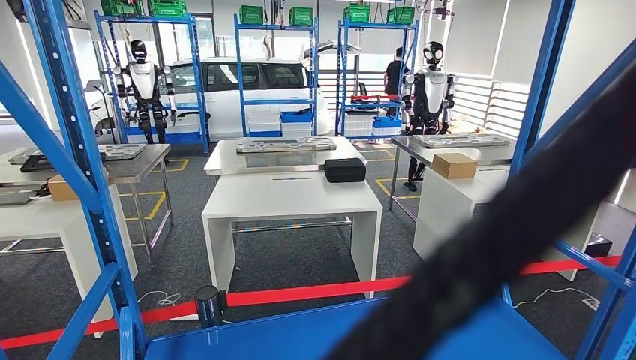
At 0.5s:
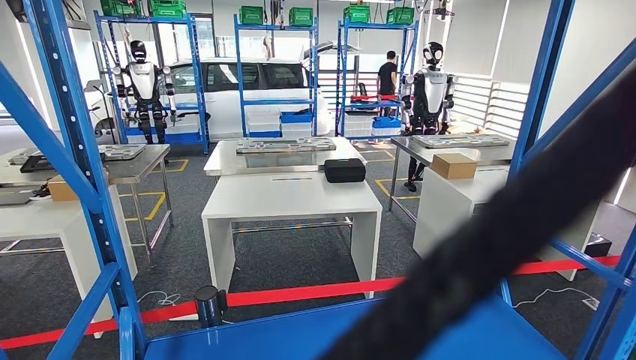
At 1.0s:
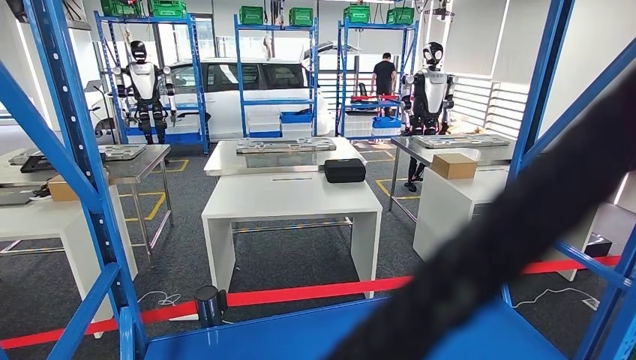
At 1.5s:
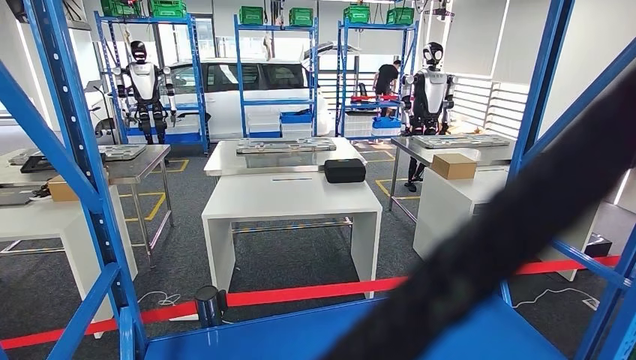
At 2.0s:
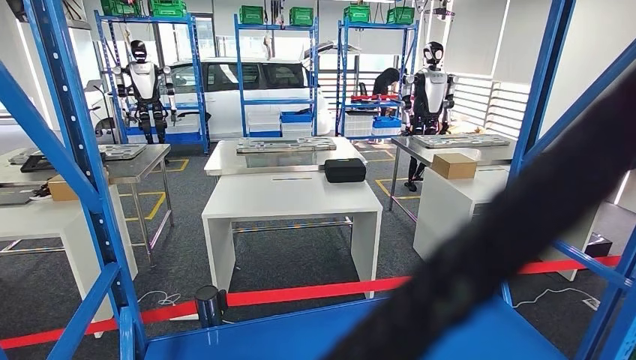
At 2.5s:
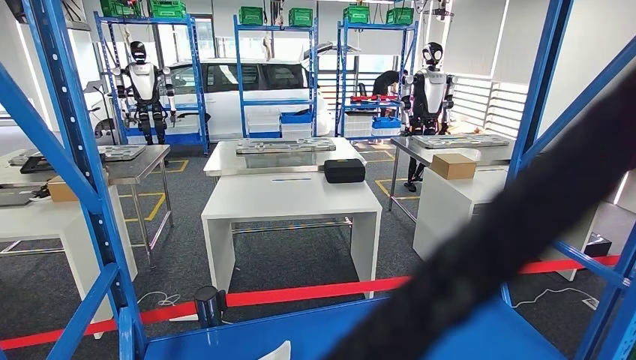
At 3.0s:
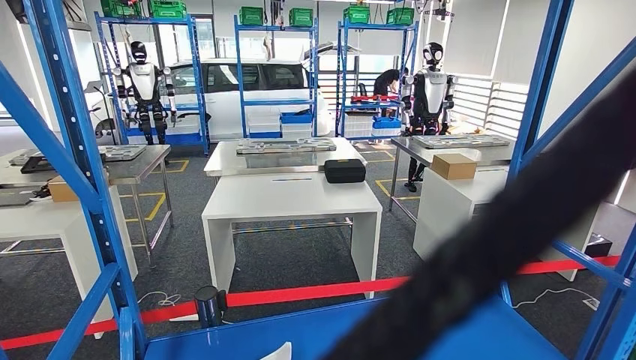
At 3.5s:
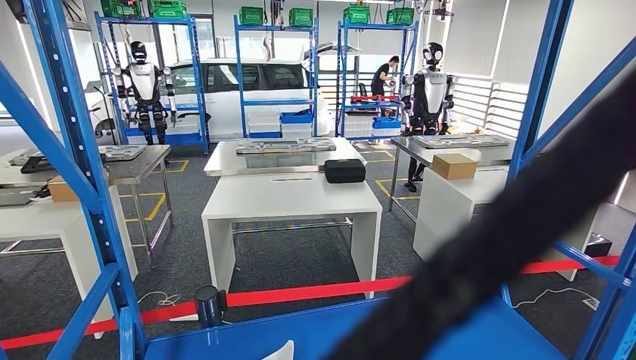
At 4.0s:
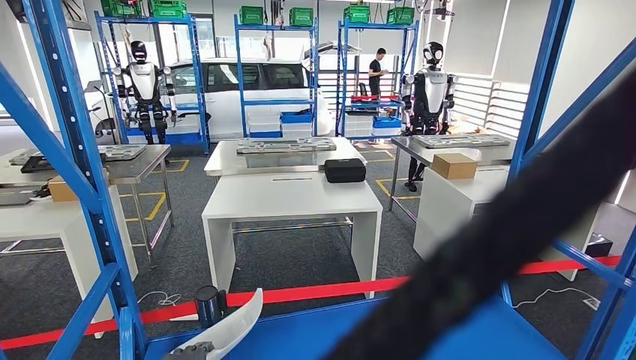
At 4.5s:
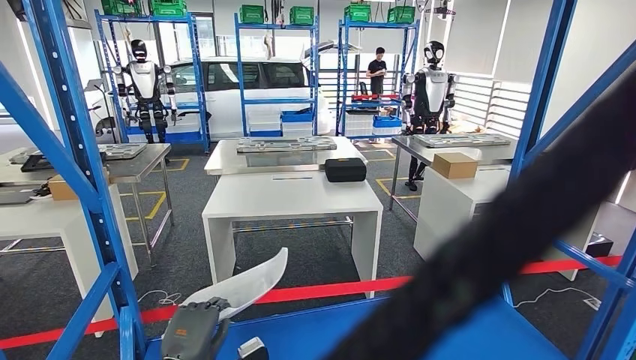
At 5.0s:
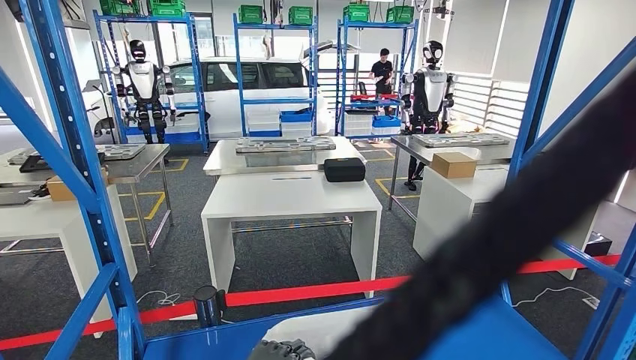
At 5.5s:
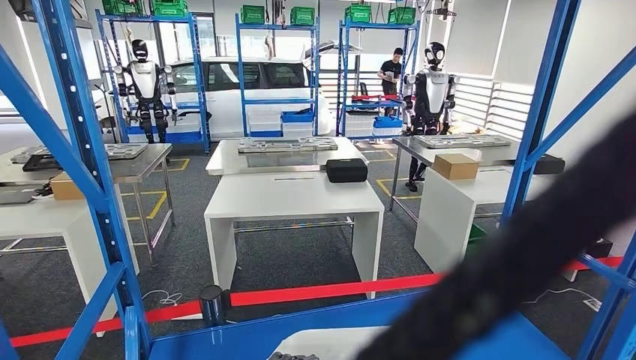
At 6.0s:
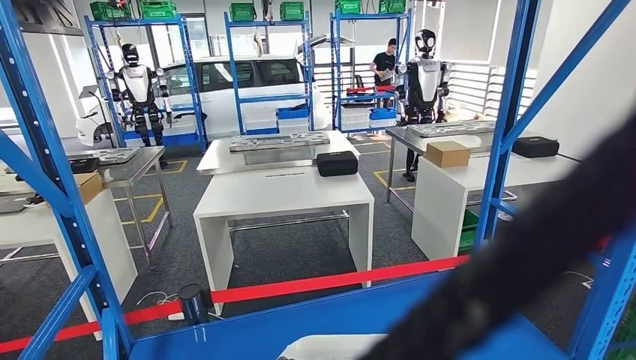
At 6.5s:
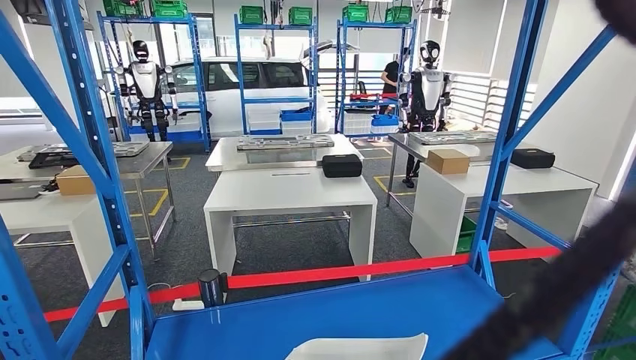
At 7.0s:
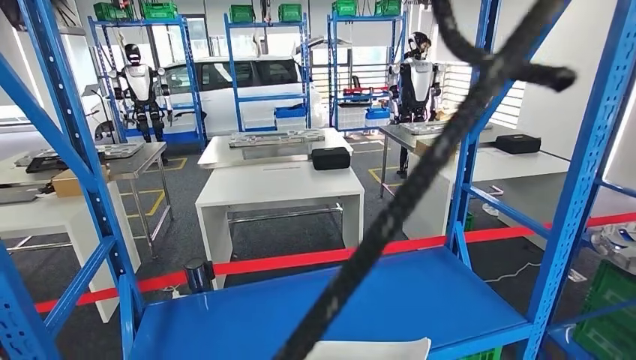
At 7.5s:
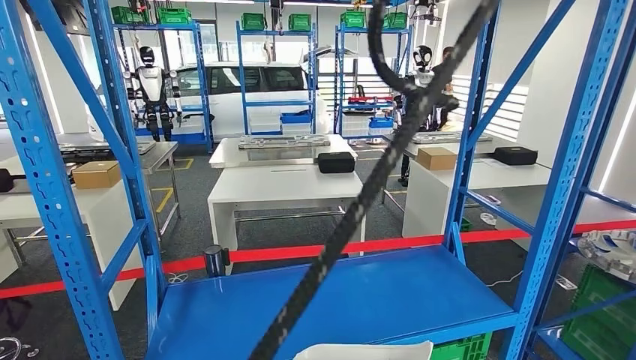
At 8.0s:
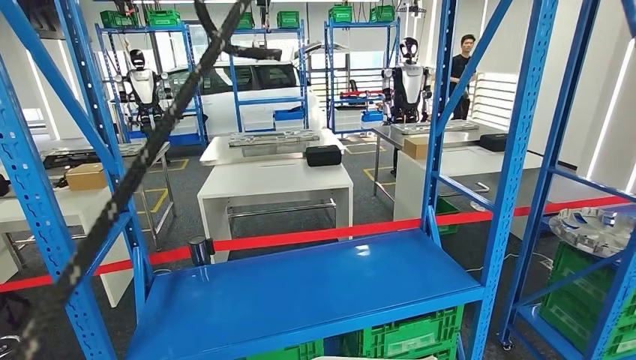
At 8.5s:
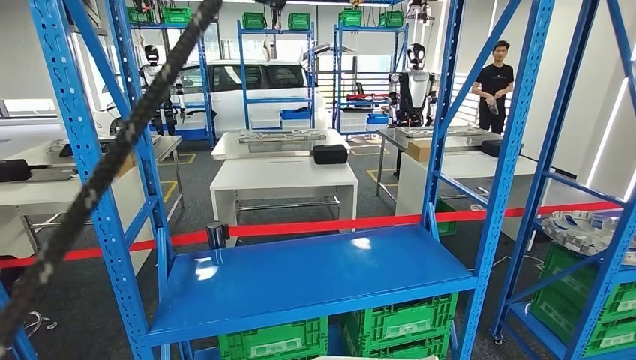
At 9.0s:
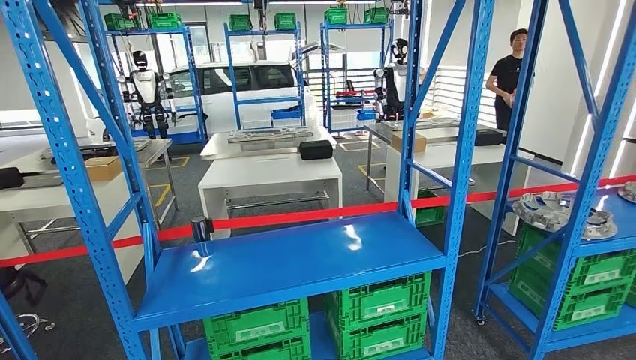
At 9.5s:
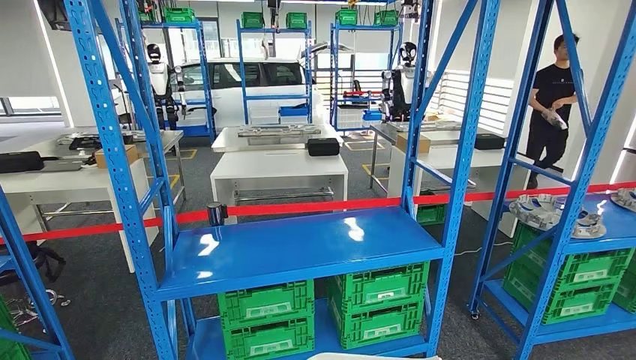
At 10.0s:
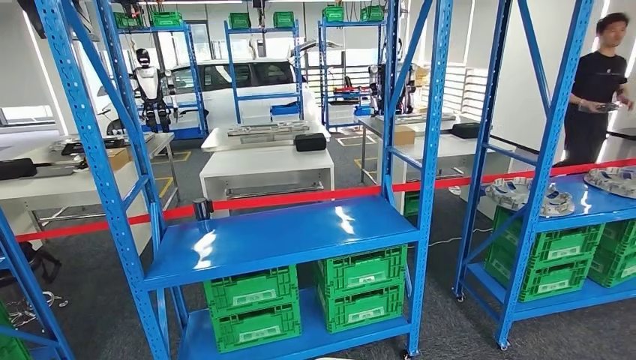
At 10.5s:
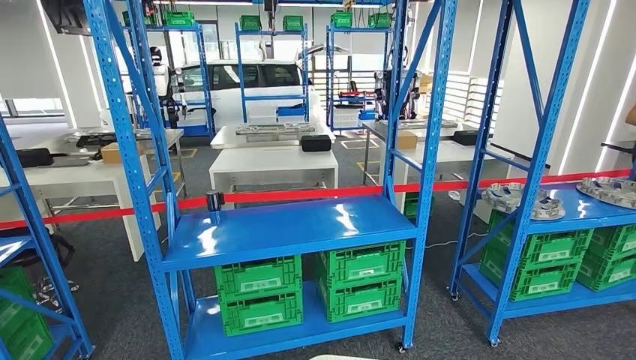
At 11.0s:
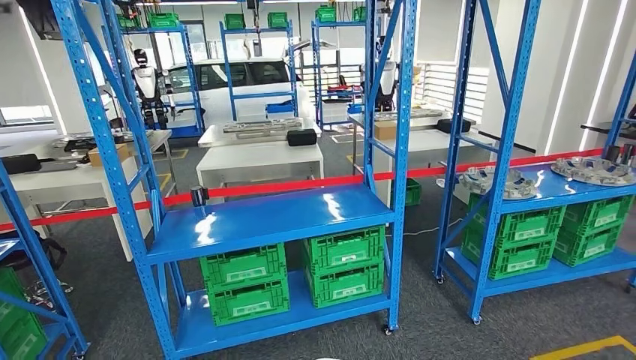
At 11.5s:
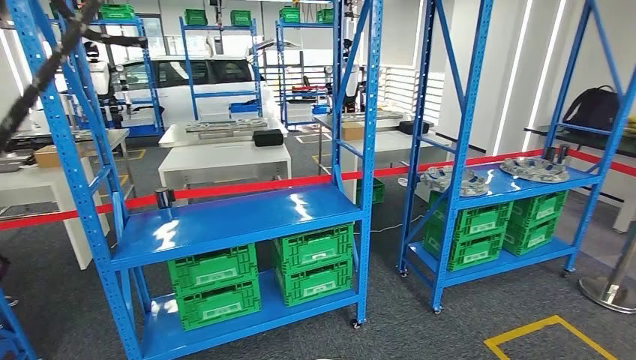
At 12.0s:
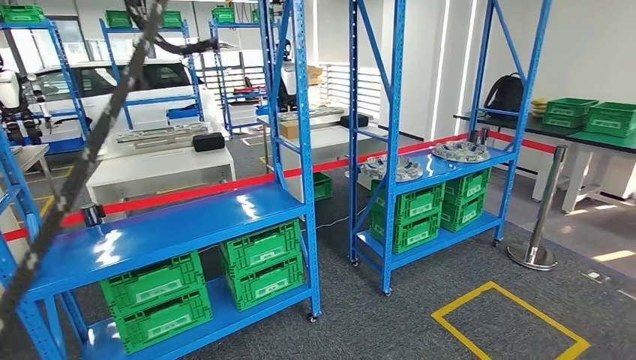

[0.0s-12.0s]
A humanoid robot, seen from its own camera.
Step, 0.0s to 5.5s: Take small components from the rack.
0.0s to 2.0s: The two hands keep their place.
2.0s to 4.0s: The left hand goes roughly 10 cm upward and forward.

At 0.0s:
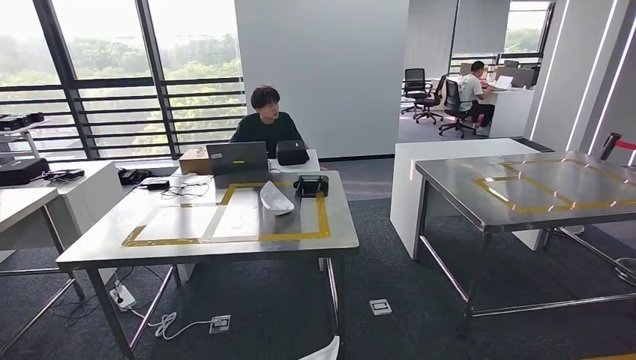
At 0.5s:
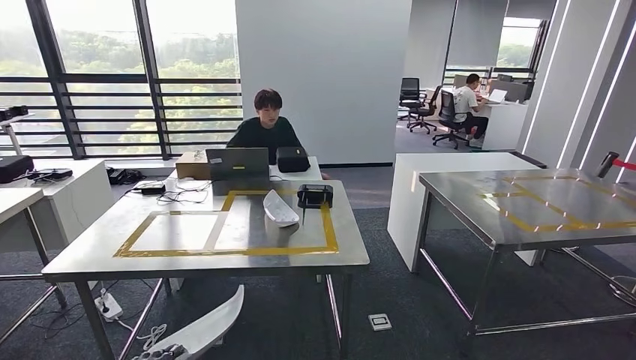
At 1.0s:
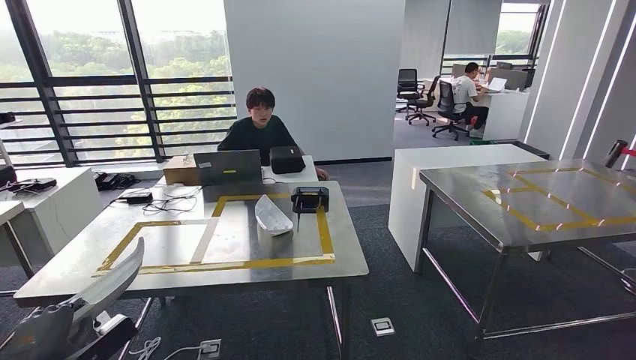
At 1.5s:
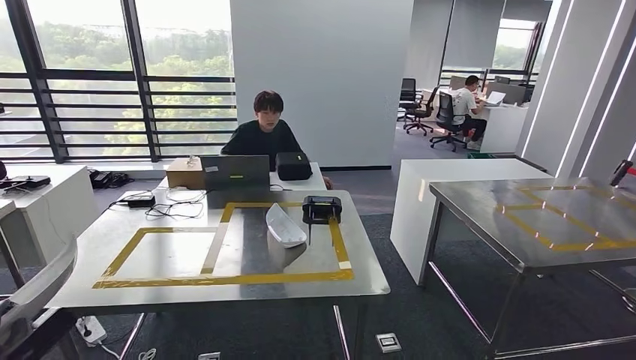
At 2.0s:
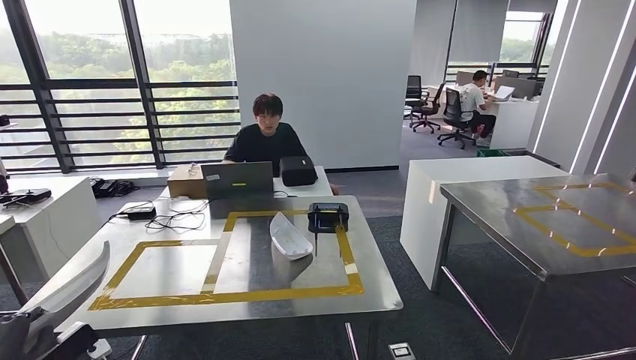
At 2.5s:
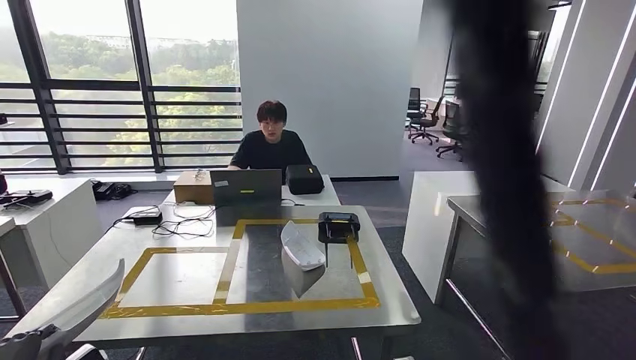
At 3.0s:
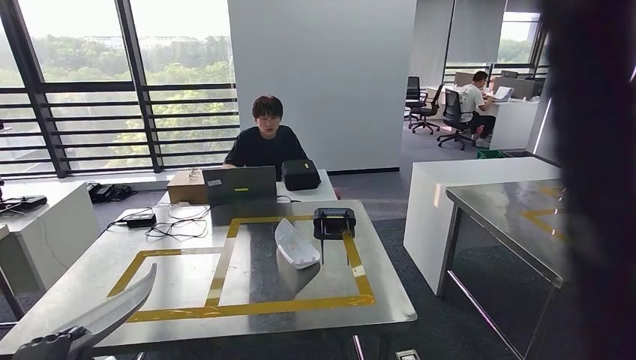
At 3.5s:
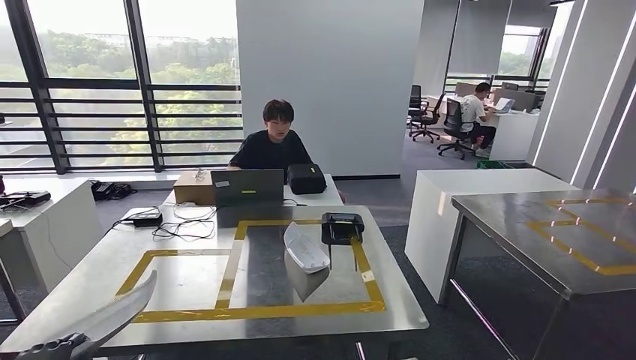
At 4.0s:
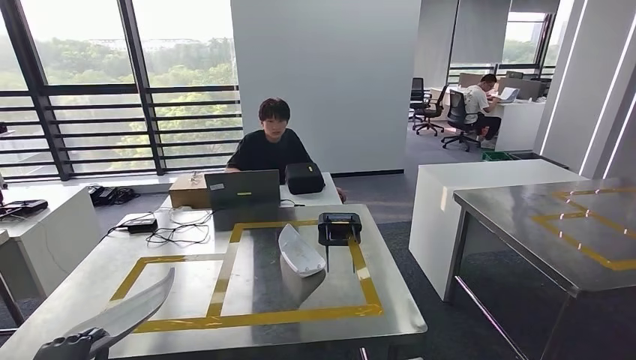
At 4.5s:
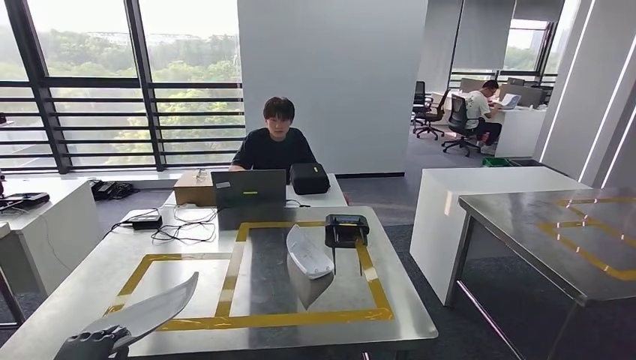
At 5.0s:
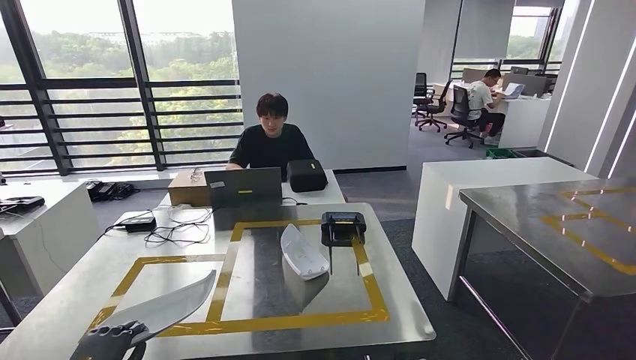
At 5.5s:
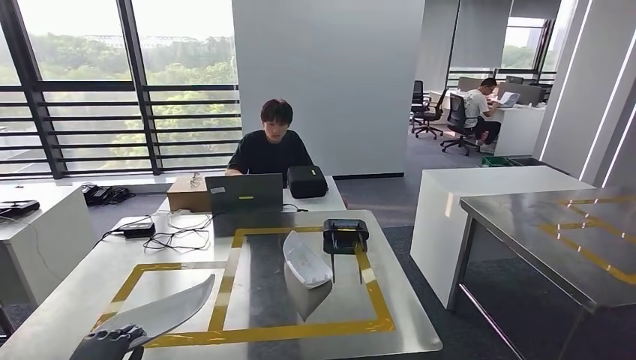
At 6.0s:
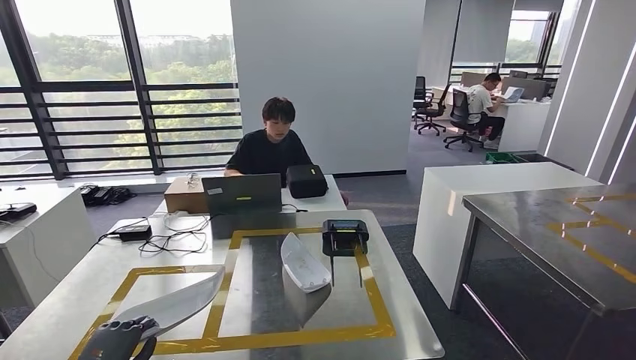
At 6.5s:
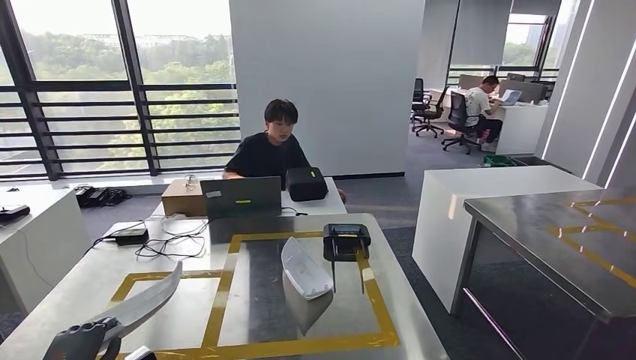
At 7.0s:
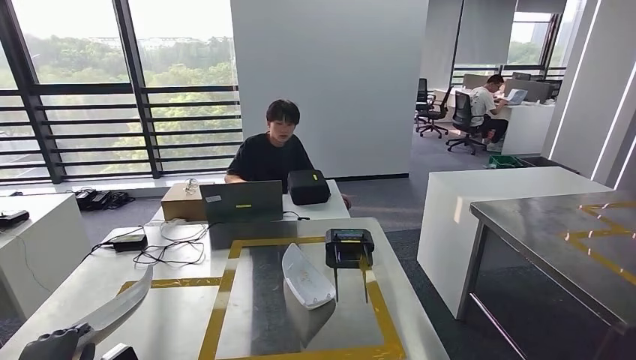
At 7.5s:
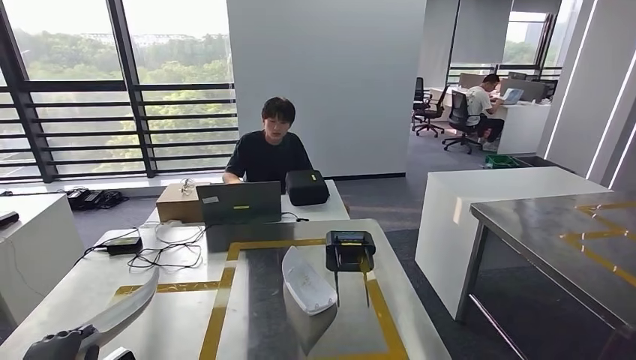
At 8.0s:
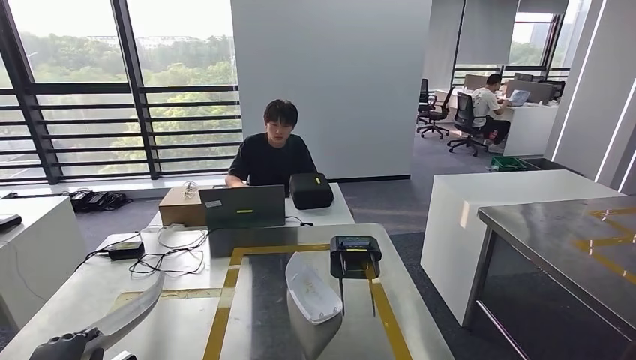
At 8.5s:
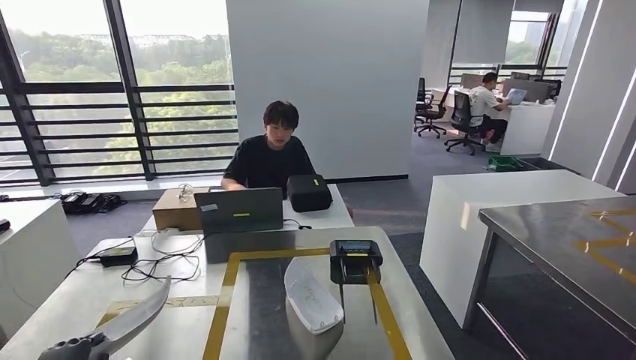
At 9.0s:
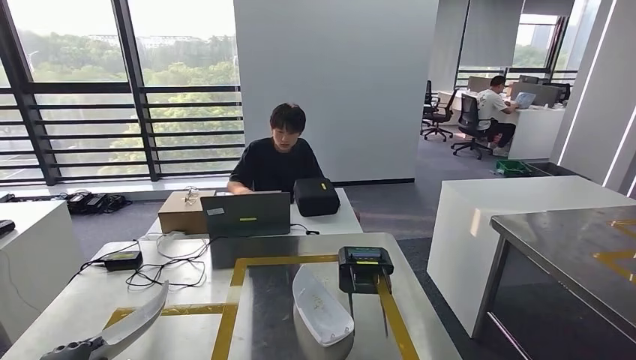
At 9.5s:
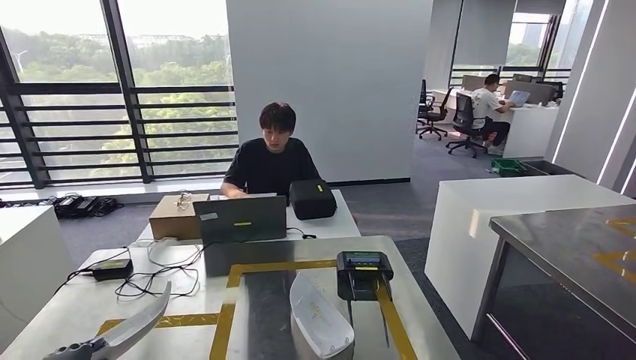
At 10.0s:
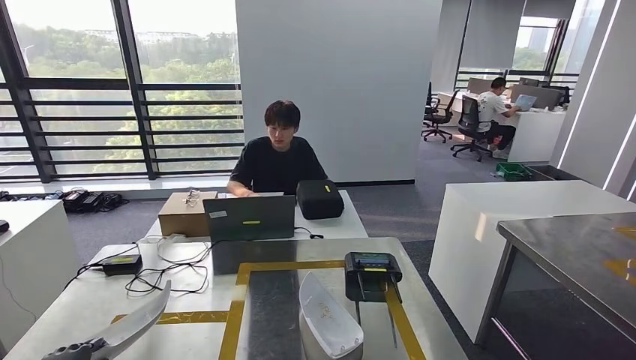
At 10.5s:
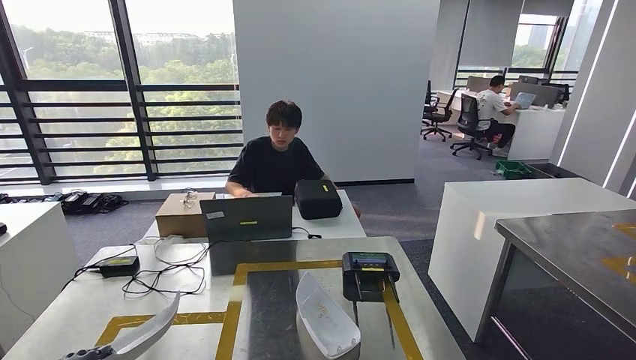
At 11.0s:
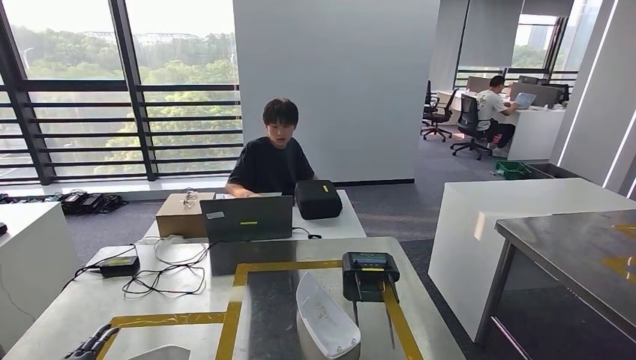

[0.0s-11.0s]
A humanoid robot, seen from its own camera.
Step, 0.0s to 2.0s: Move the small parts to the workbench.
9.0s to 11.0s: The hands move only a little.
